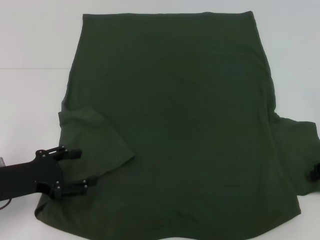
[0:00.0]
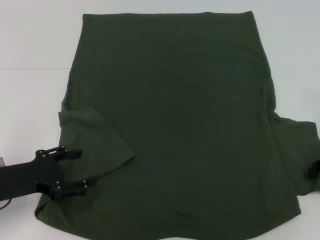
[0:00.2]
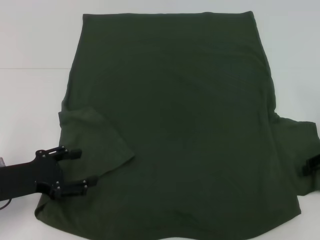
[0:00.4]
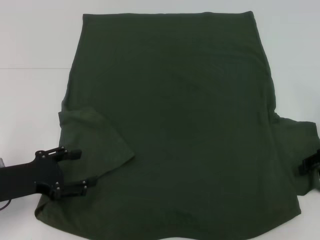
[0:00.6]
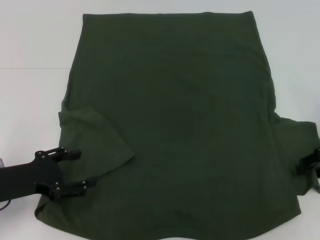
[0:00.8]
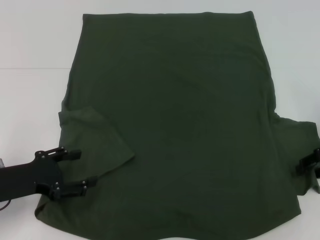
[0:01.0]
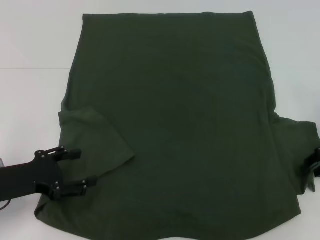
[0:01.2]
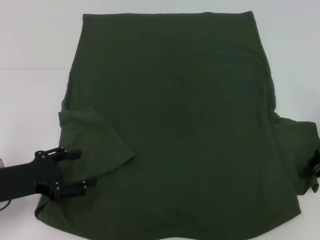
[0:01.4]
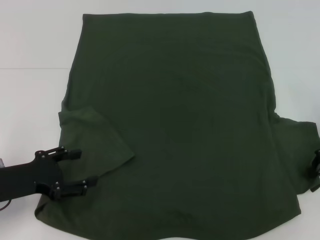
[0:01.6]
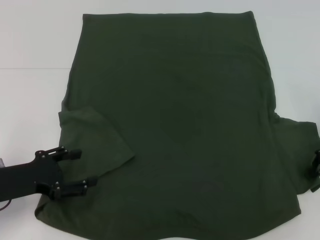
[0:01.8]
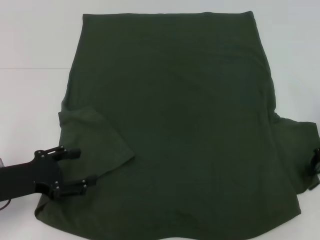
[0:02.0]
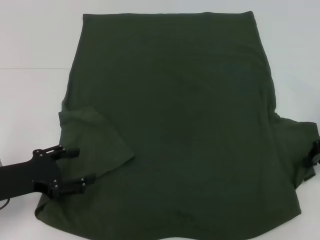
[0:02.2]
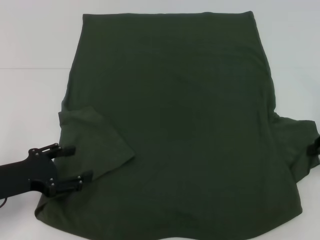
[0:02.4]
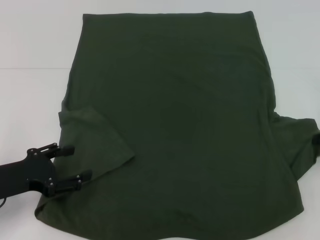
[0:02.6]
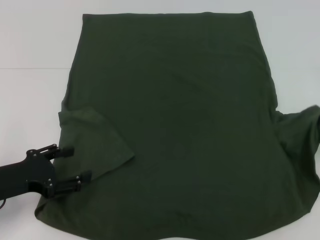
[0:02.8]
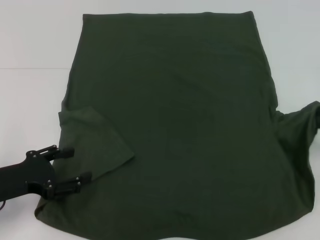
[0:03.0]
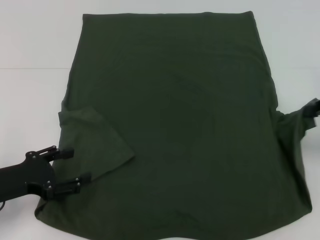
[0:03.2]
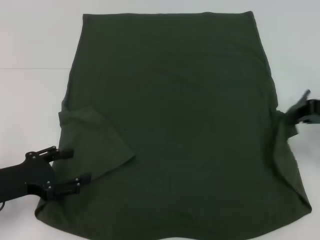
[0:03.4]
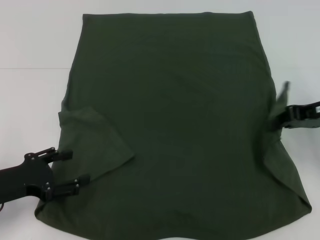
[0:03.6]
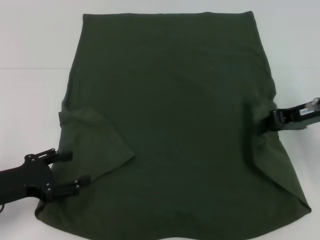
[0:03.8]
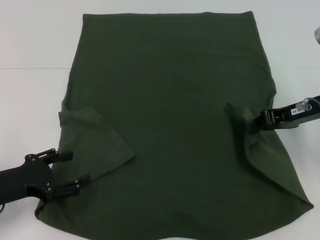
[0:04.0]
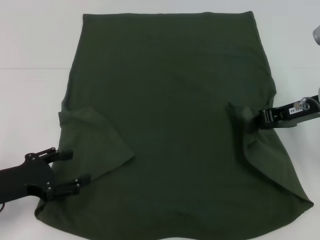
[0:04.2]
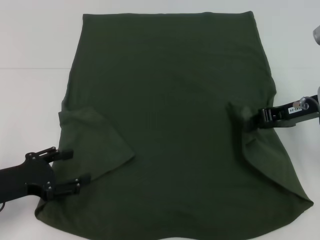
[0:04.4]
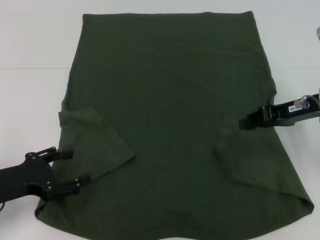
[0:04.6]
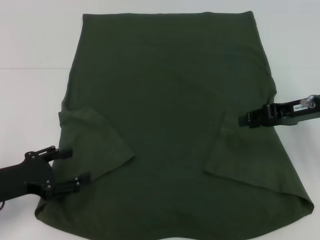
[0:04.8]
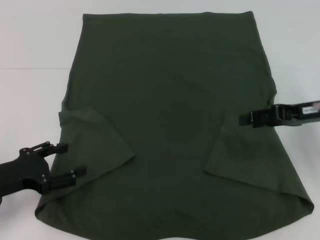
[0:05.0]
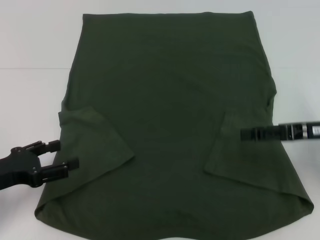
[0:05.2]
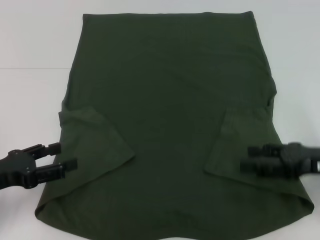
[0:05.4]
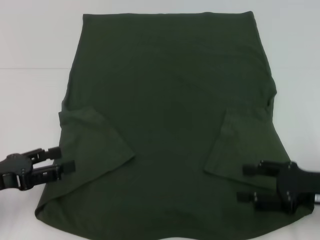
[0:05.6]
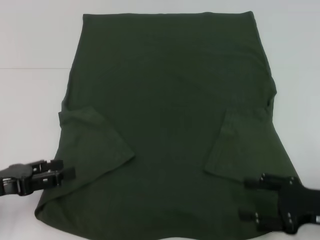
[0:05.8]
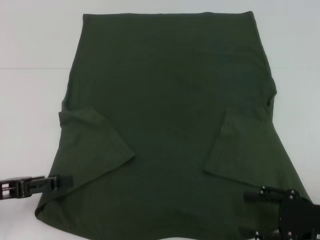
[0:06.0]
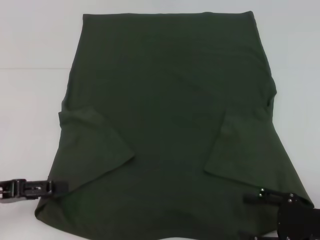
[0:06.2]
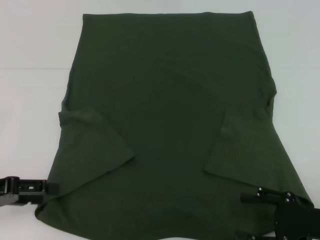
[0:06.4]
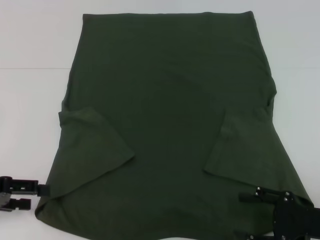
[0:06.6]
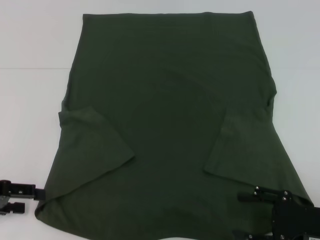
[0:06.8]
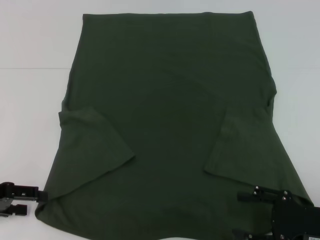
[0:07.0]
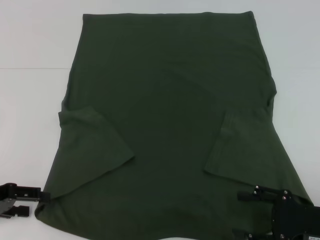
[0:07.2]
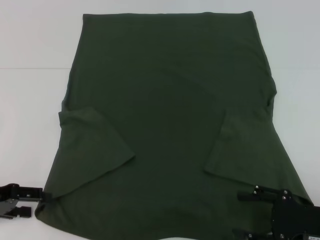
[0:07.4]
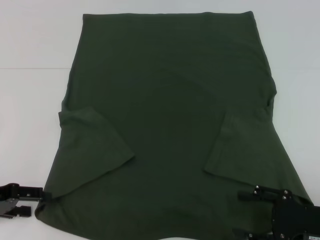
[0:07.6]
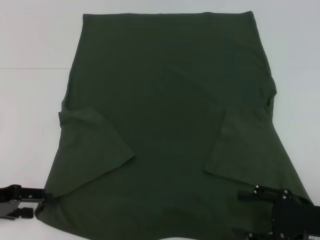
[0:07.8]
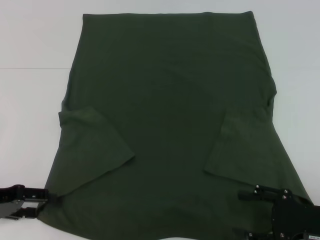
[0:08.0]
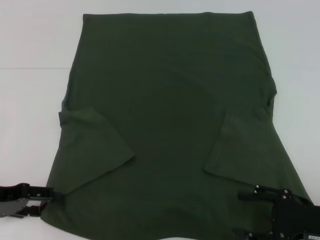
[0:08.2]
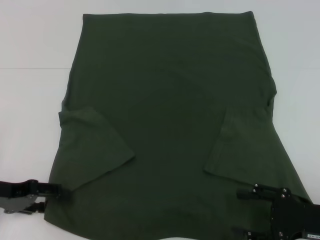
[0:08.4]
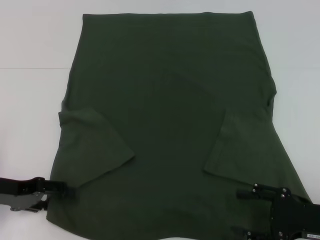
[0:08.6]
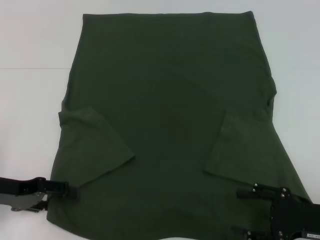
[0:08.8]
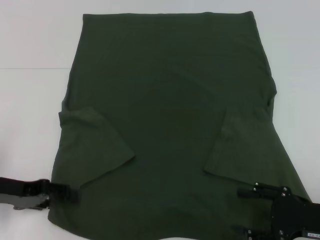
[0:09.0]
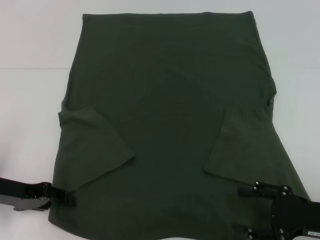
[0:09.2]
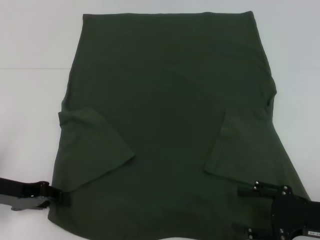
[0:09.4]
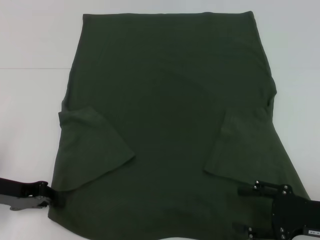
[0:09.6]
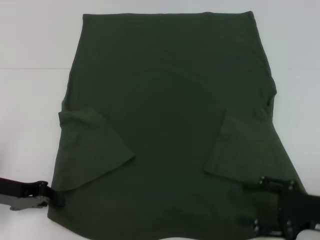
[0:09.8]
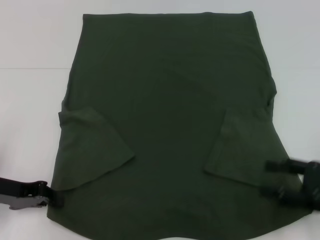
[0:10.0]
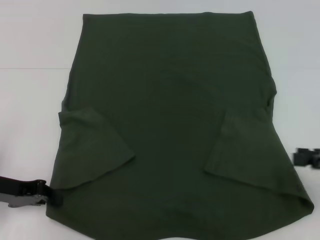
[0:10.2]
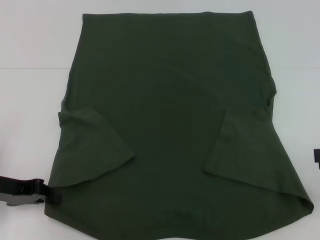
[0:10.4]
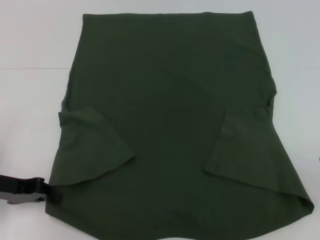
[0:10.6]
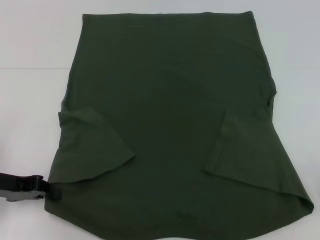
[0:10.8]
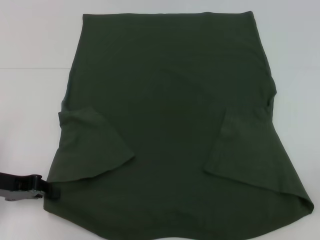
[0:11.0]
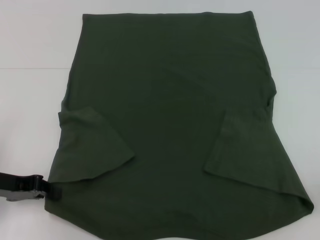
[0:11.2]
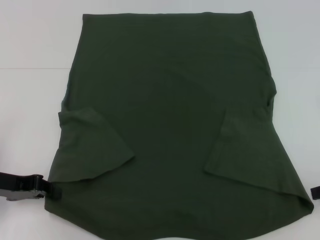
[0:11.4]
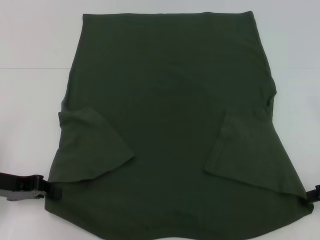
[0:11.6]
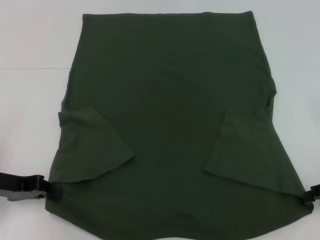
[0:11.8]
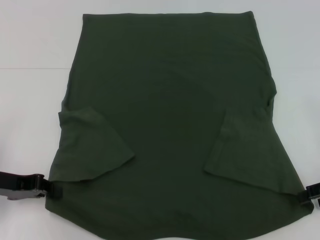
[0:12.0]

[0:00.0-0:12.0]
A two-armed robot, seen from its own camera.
Step, 0:00.0 to 0:04.8: Fold the bottom right sleeve with your right hand.
Step, 0:05.0 to 0:09.6: Grab the bottom left corner with your left hand.
0:01.6 to 0:03.0: The right gripper moves about 5 cm.
0:03.0 to 0:04.4: The right gripper shifts some 10 cm to the left.
0:04.4 to 0:06.0: The right gripper is displaced backward and downward by some 20 cm, and opens.
0:07.6 to 0:09.0: The grippers stay close to where they were, moving slightly.
0:09.0 to 0:10.4: The left gripper closes; the right gripper goes about 15 cm upward, to the right and forward.

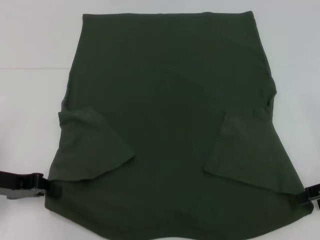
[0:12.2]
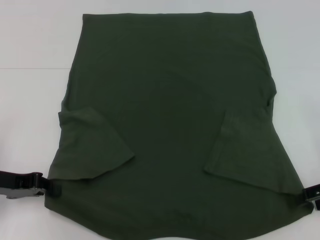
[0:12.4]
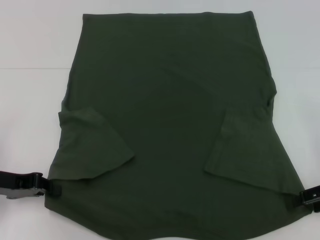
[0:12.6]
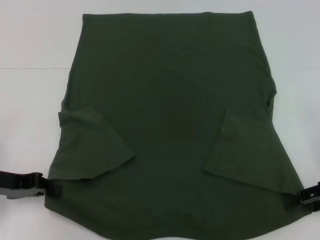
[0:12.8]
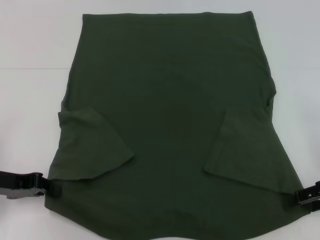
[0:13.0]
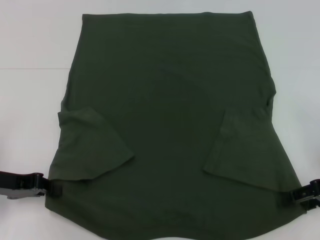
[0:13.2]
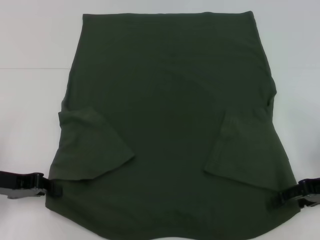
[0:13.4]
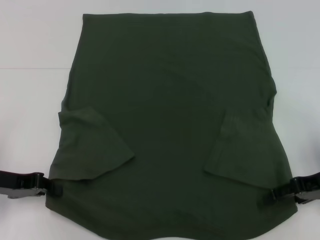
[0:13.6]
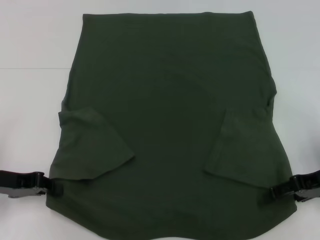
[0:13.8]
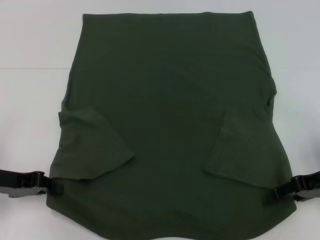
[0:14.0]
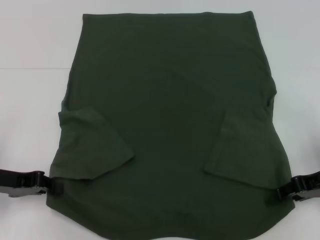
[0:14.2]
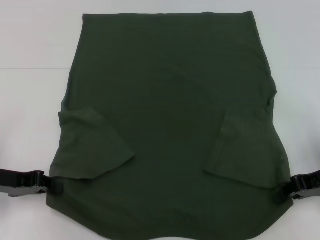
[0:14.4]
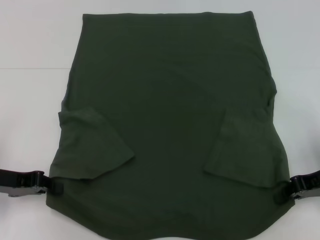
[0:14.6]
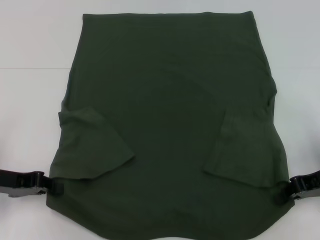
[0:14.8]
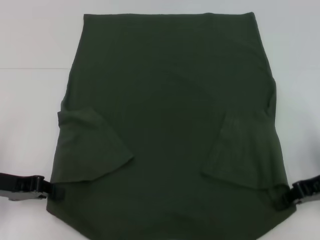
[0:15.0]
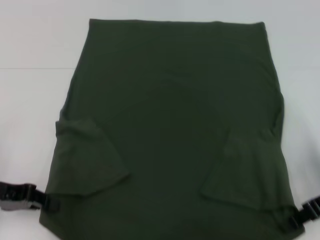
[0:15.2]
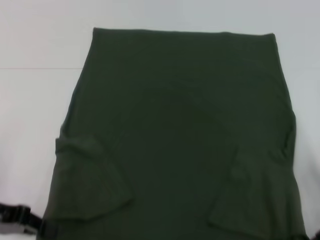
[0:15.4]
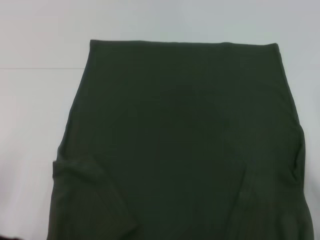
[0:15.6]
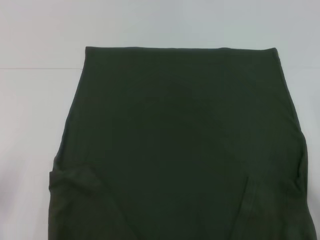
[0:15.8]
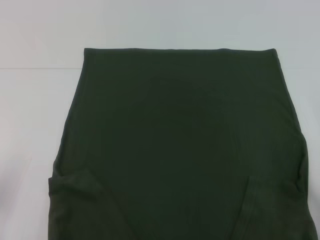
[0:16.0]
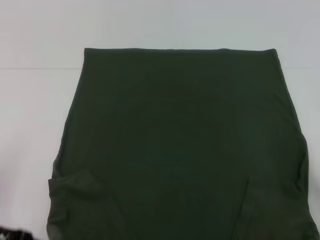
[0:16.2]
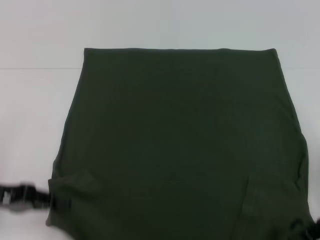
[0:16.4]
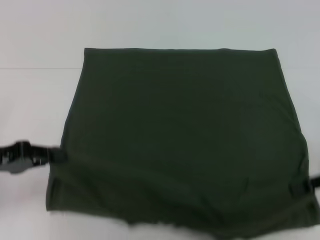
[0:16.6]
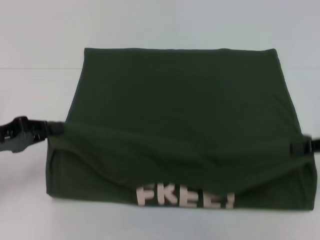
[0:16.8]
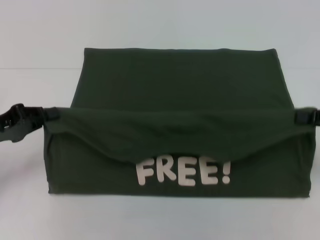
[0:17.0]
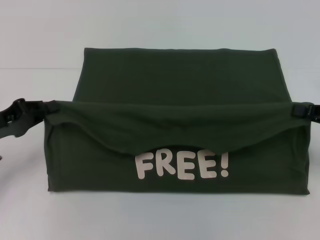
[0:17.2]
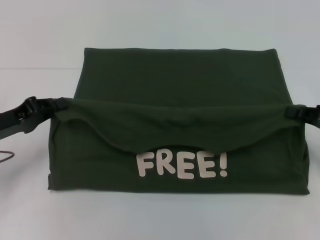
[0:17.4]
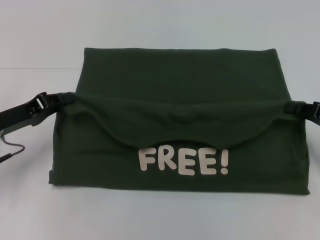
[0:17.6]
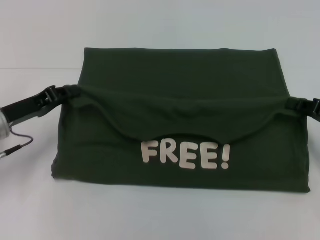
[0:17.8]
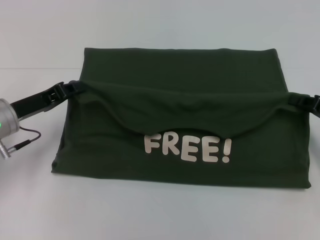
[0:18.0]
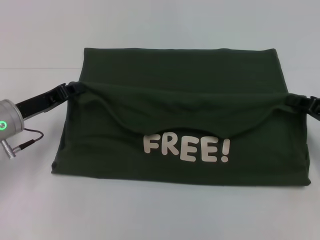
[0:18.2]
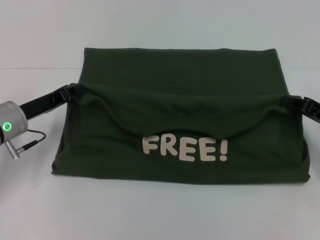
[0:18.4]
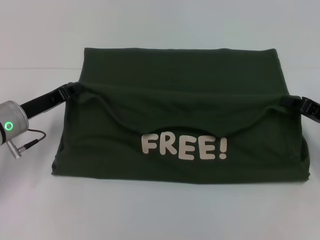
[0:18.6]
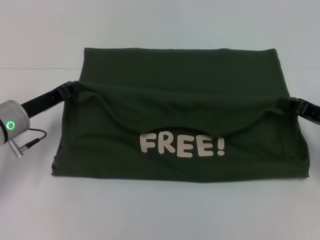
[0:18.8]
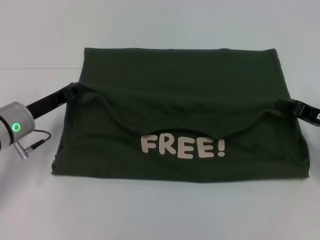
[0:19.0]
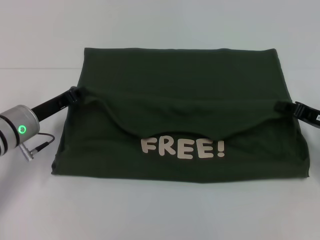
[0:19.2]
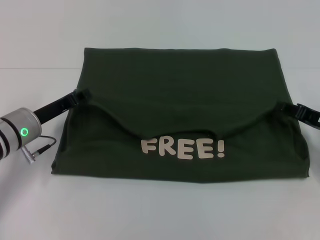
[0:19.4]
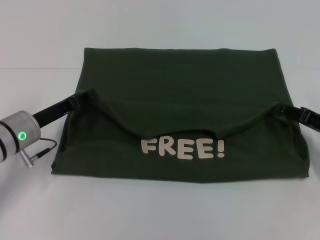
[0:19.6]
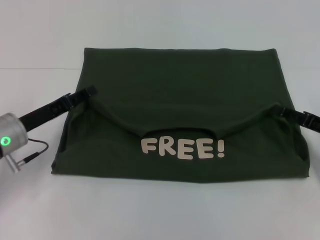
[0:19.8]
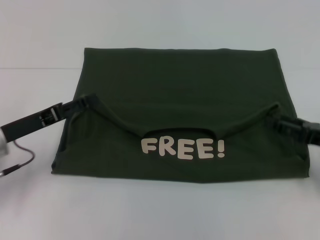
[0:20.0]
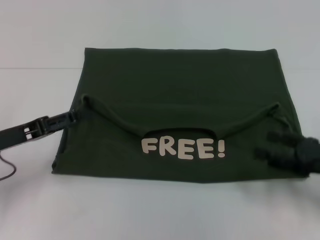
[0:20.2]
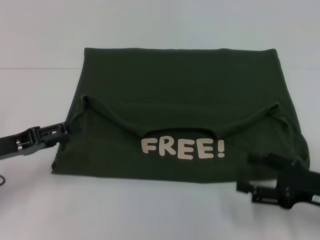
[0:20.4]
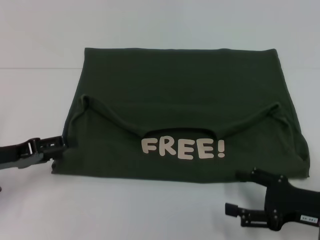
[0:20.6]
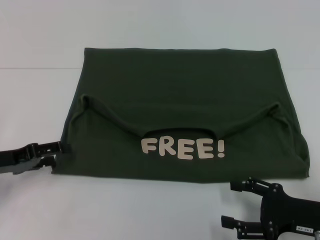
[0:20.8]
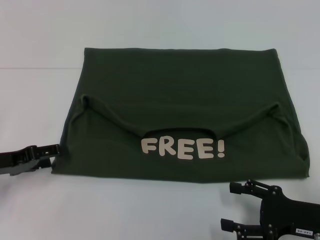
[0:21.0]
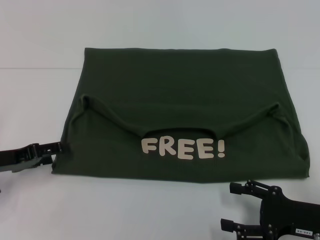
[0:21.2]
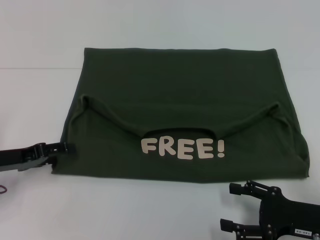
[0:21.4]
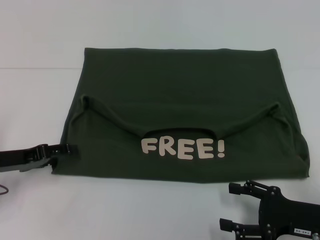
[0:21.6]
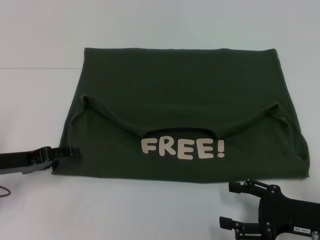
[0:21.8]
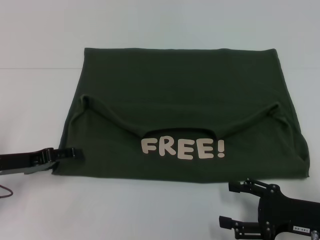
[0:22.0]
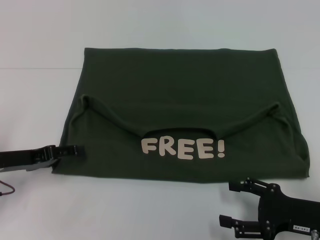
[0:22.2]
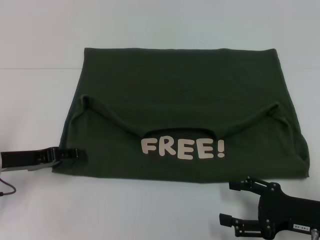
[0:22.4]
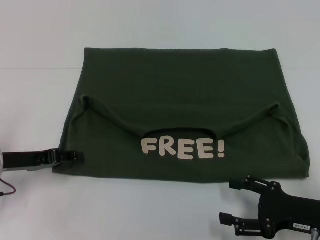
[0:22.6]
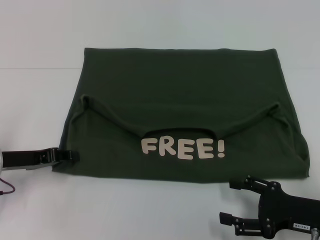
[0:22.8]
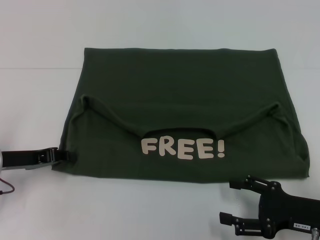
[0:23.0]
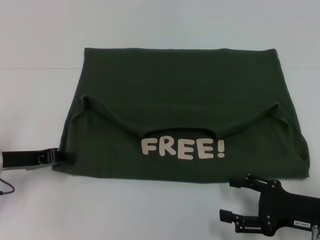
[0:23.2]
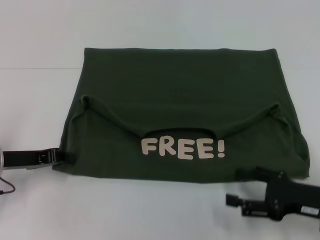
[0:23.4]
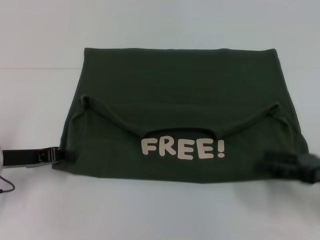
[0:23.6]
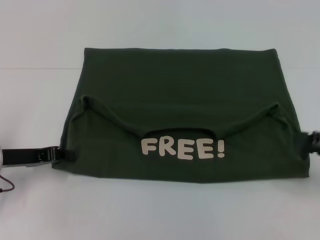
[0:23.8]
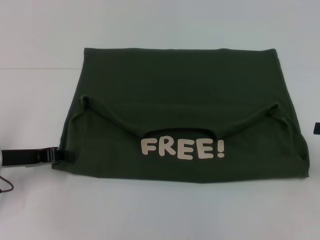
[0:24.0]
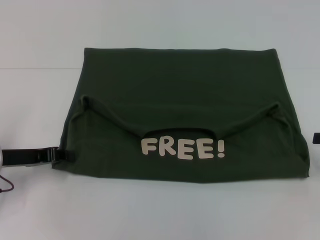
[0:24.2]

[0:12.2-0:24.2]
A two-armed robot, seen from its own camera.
Step, 0:12.2 to 0:14.4: Grab the bottom right corner with your right hand.
Step, 0:14.6 to 0:19.8: Fold the clothes with your left hand.
Step, 0:14.6 to 0:19.8: Fold the clothes with your right hand.
0:12.2 to 0:13.8: The right gripper shifts by about 5 cm.
0:13.8 to 0:15.2: The right gripper closes.
0:16.6 to 0:18.2: The left gripper heads forward and to the right, covering some 10 cm. Meanwhile the right gripper travels downward by some 5 cm.
0:18.2 to 0:19.8: The right gripper opens up, while the left gripper opens.
0:19.8 to 0:21.2: The left gripper shifts some 5 cm to the left, and opens up; the right gripper travels backward and to the left by roughly 10 cm, and opens.
0:21.2 to 0:22.6: There are only small adjustments of the grippers.
0:22.6 to 0:24.2: The right gripper goes roughly 15 cm to the right, upward and forward, while the left gripper closes up.
